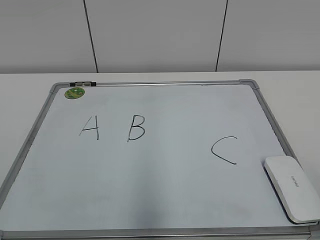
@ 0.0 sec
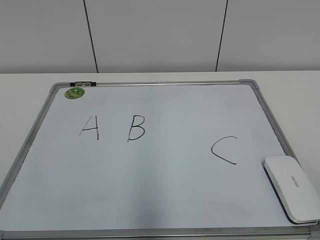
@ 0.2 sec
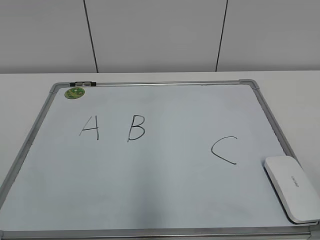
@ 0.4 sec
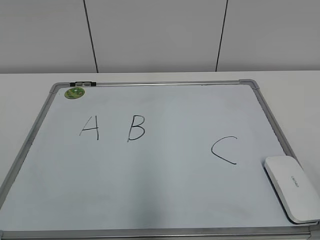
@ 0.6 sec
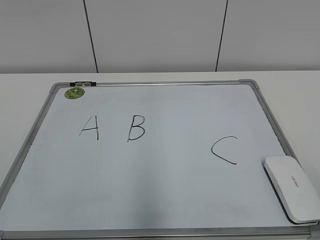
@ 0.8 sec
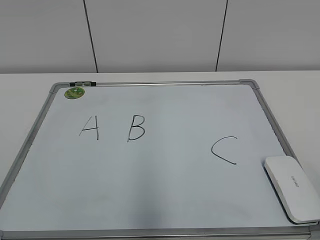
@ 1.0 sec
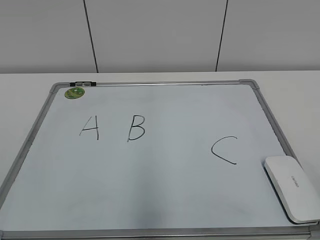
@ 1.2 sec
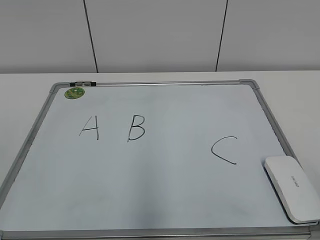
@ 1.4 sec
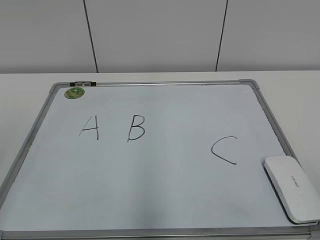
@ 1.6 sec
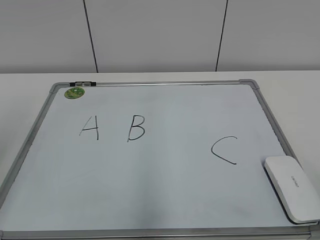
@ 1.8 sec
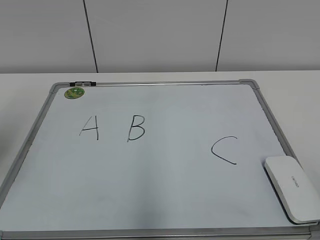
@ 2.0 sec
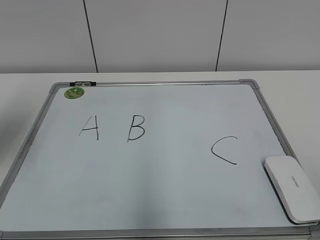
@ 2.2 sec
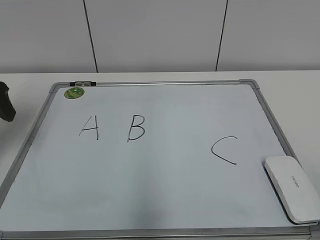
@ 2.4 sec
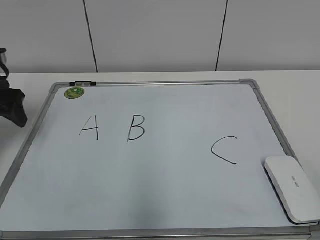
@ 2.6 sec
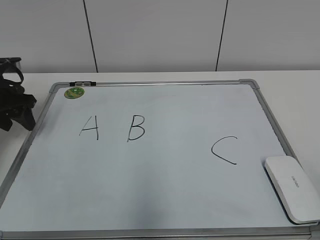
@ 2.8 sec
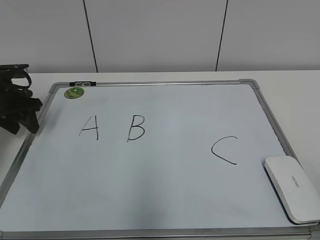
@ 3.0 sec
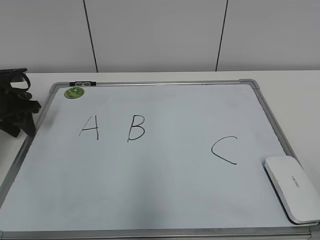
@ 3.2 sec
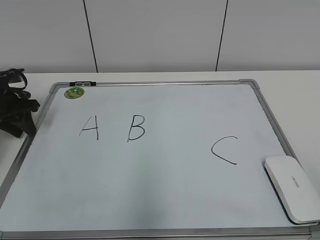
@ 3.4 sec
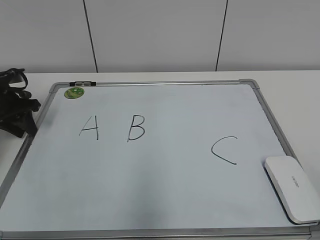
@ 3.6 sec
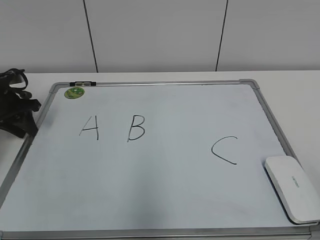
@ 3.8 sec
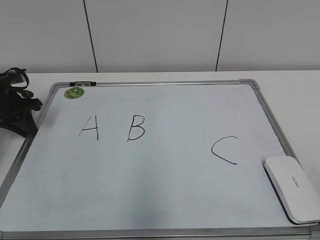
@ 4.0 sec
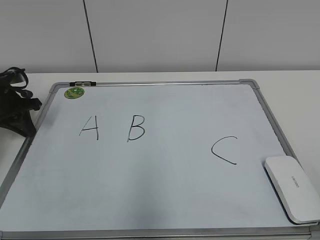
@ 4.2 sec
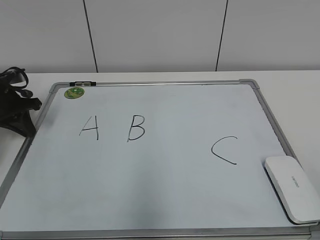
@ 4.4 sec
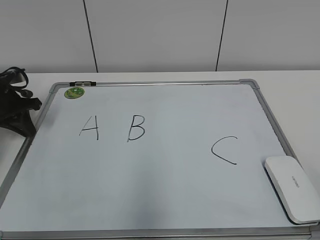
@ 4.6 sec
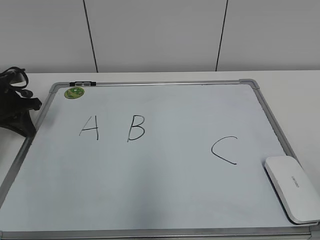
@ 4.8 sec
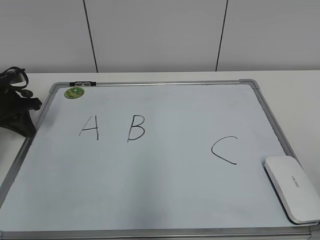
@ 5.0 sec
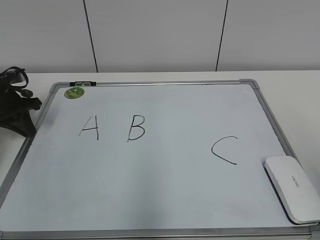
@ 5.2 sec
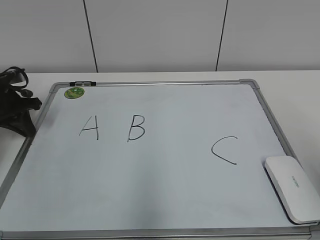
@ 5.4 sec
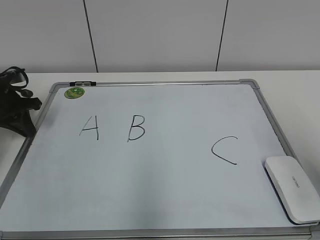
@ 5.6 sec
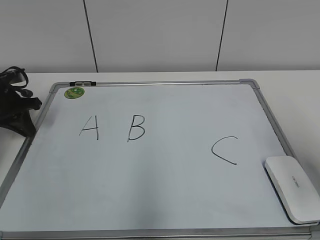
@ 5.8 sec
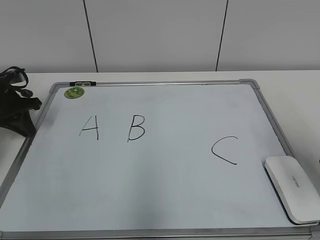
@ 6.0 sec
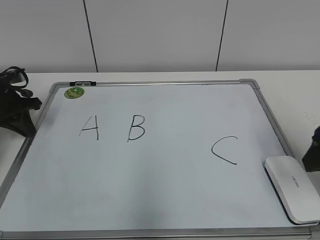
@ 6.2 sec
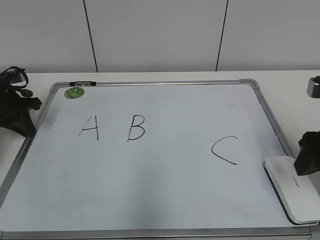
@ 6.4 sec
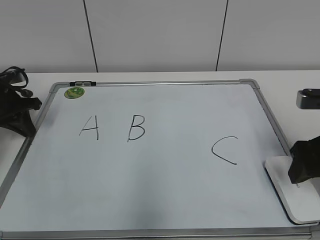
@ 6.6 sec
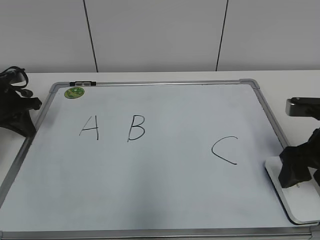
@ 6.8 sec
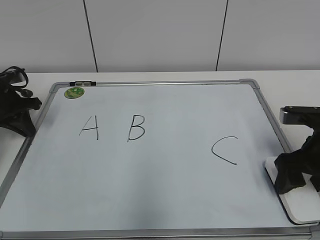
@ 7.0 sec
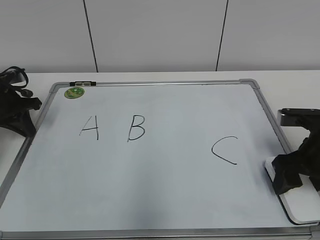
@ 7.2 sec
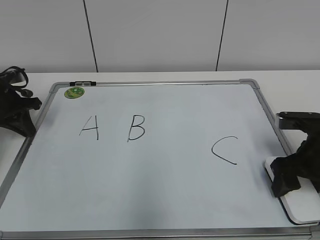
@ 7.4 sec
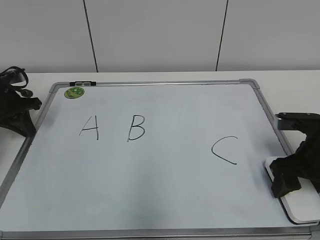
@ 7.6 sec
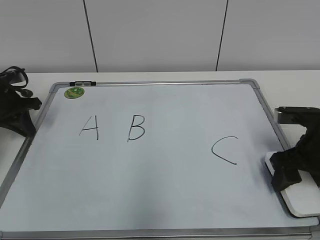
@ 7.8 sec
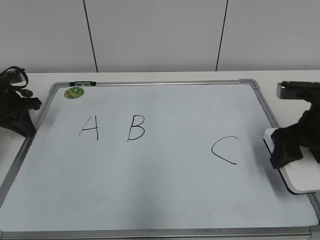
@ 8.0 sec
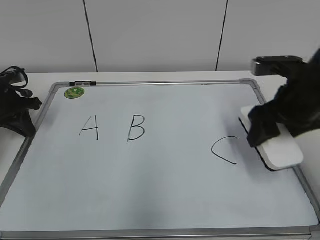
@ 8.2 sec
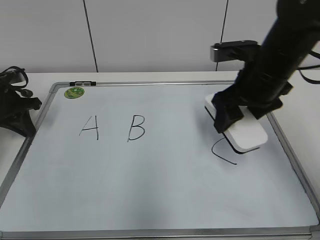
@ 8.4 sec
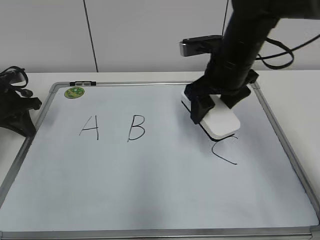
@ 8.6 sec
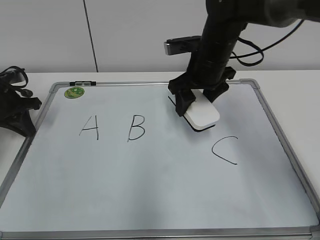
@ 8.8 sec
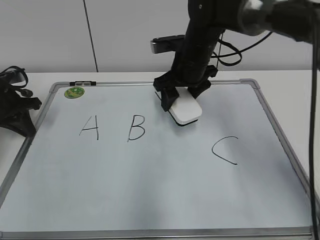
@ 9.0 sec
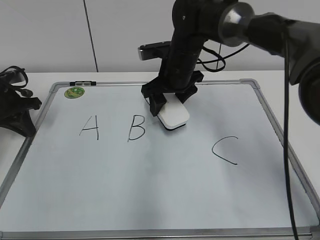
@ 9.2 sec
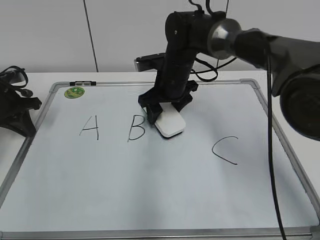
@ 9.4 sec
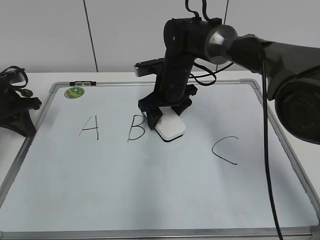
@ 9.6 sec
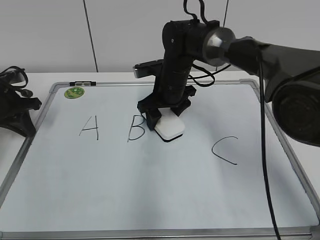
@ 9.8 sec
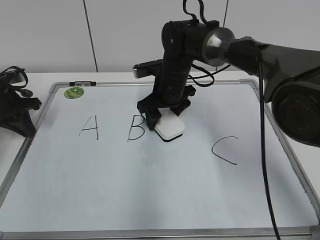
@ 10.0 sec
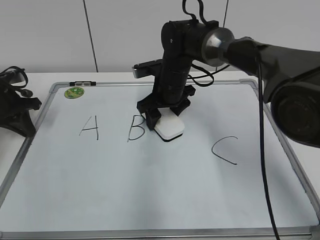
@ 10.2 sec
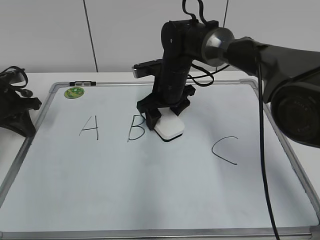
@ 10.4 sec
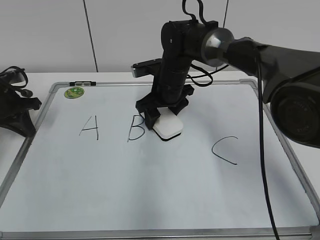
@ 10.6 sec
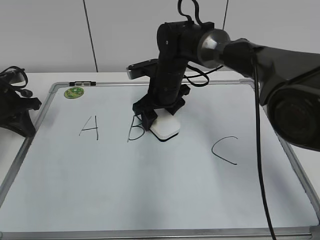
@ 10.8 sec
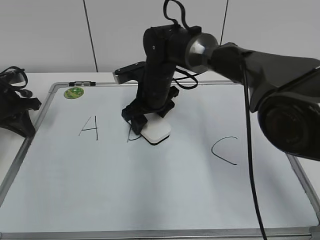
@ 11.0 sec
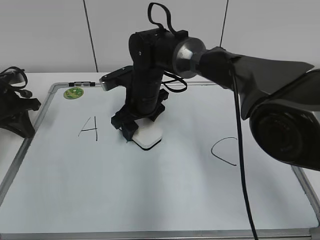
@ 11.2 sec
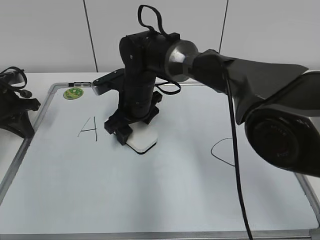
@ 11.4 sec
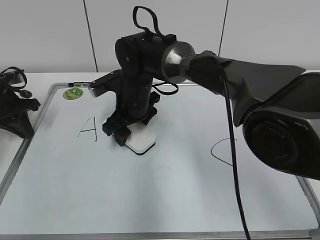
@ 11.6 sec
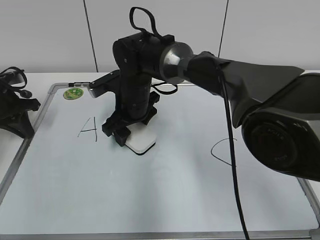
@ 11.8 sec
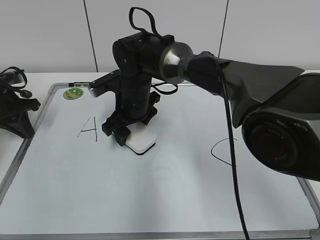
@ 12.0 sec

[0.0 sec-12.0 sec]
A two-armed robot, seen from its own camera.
Task of the whole recording: pick up the eraser on the blackboard and erase the letter "B".
Step, 0.0 sec to 4.8 sec: Hold the drawing board steady with your left hand.
Step, 5.0 sec to 7.4 sec: Grab the eraser with your right hand.
1.6 sec to 3.0 sec: The left gripper moves forward and downward, some 35 cm, and closes.
3.0 sec to 4.4 sec: The left gripper closes its fingers.
4.4 sec to 6.0 sec: The right gripper goes some 20 cm forward.
6.0 sec to 7.6 sec: The right gripper shifts some 15 cm downward and forward, and closes.
7.6 sec to 9.0 sec: The right gripper moves to the left and forward, approximately 25 cm.
9.0 sec to 10.4 sec: The right gripper is displaced downward by some 5 cm.
10.4 sec to 12.0 sec: The right gripper goes roughly 5 cm to the left.

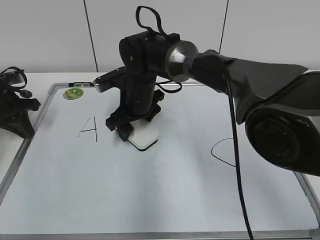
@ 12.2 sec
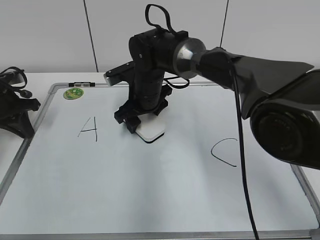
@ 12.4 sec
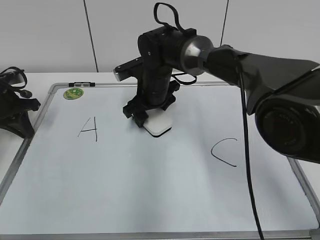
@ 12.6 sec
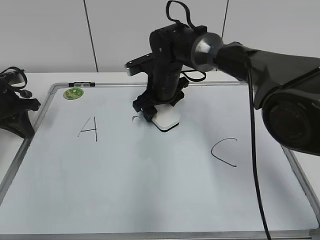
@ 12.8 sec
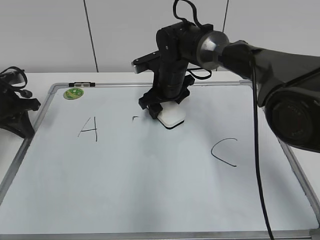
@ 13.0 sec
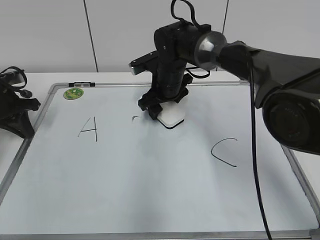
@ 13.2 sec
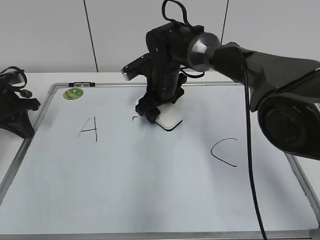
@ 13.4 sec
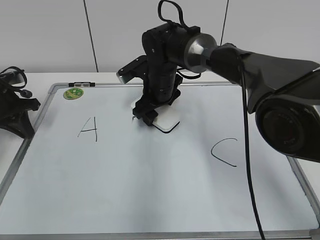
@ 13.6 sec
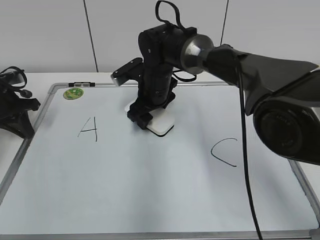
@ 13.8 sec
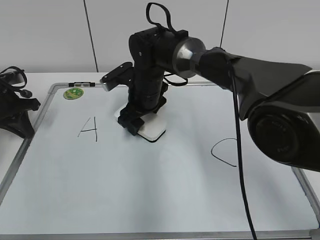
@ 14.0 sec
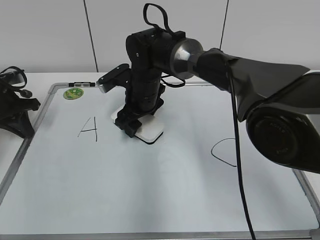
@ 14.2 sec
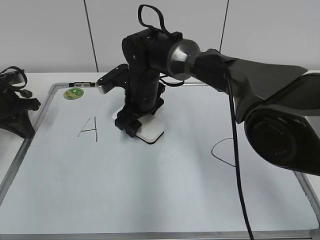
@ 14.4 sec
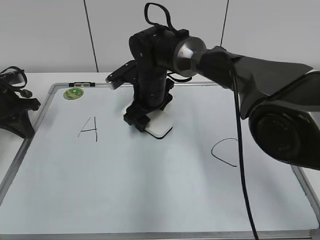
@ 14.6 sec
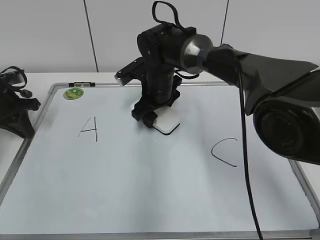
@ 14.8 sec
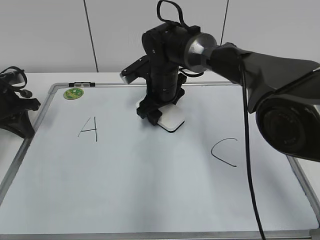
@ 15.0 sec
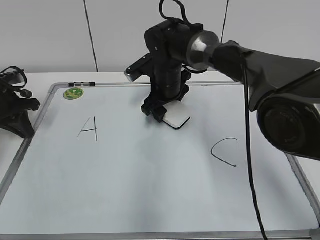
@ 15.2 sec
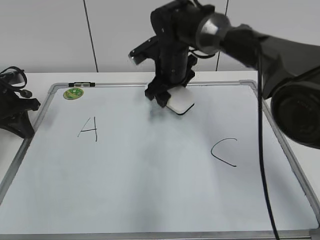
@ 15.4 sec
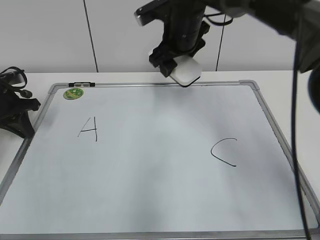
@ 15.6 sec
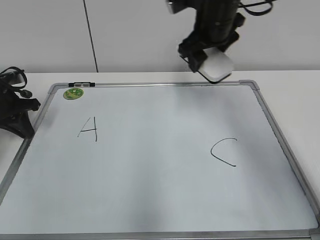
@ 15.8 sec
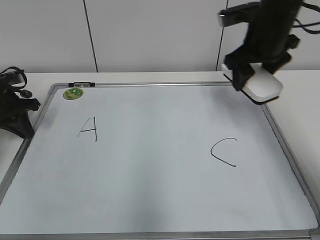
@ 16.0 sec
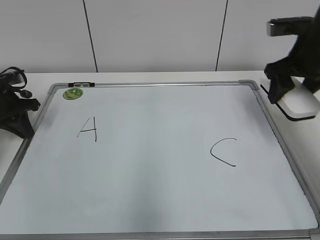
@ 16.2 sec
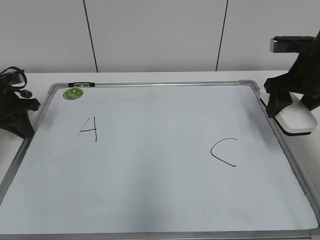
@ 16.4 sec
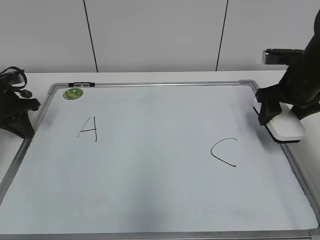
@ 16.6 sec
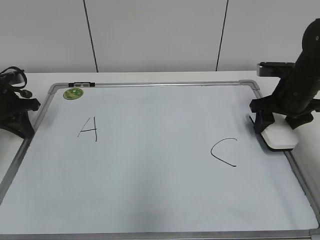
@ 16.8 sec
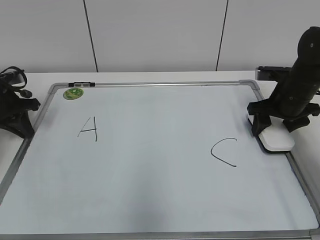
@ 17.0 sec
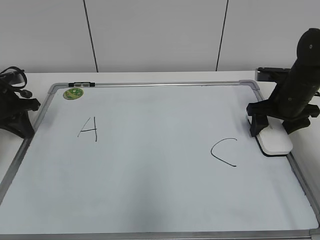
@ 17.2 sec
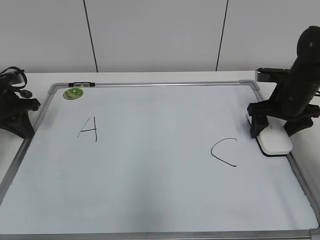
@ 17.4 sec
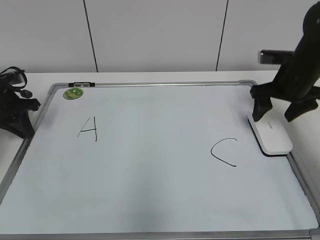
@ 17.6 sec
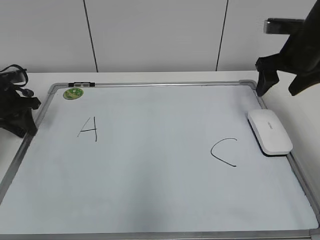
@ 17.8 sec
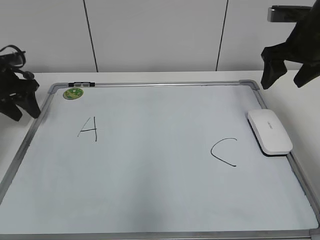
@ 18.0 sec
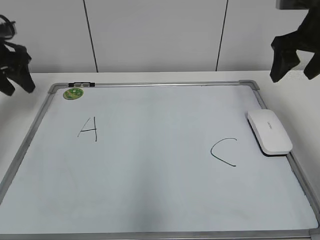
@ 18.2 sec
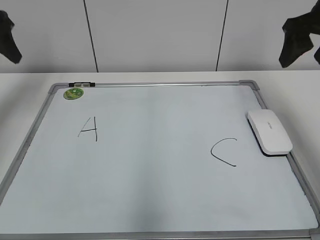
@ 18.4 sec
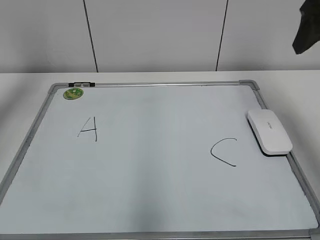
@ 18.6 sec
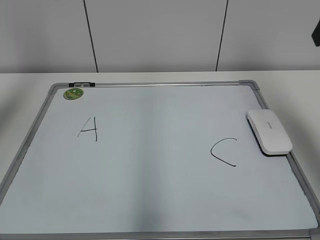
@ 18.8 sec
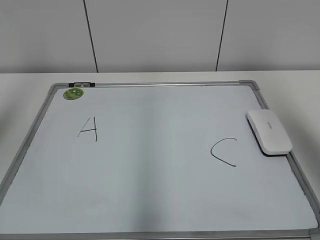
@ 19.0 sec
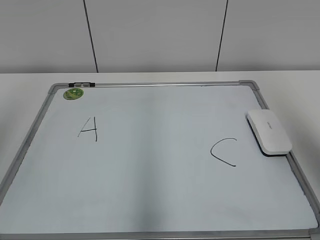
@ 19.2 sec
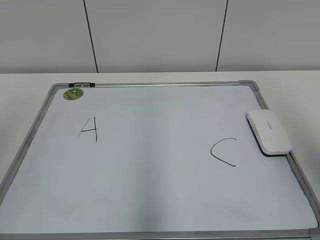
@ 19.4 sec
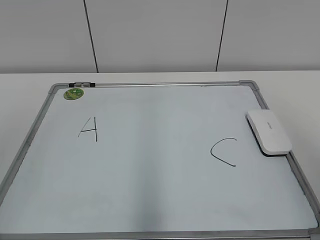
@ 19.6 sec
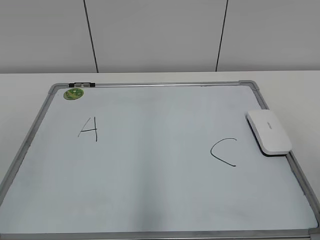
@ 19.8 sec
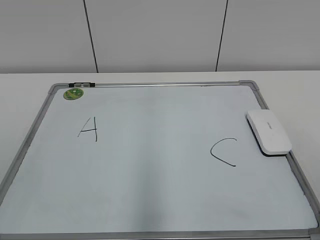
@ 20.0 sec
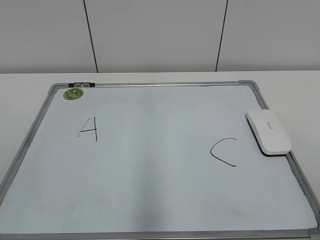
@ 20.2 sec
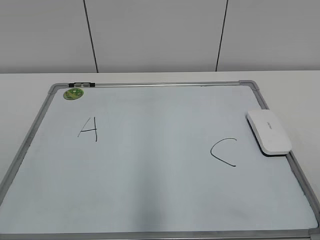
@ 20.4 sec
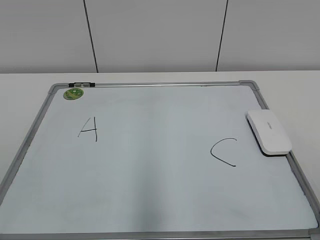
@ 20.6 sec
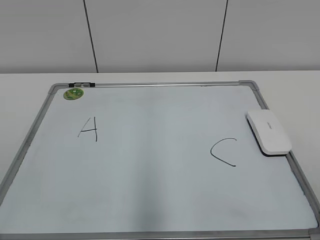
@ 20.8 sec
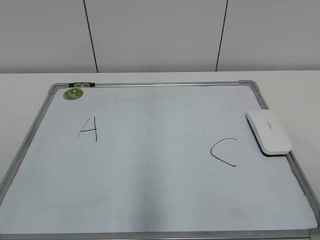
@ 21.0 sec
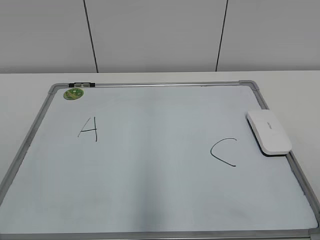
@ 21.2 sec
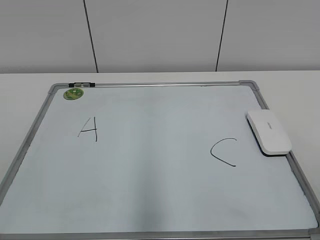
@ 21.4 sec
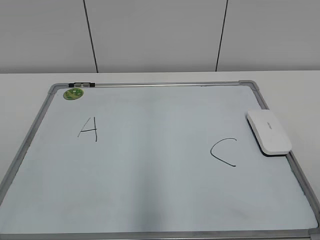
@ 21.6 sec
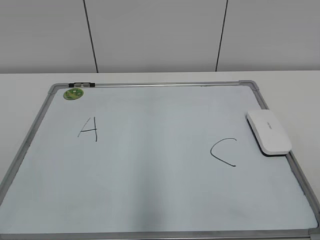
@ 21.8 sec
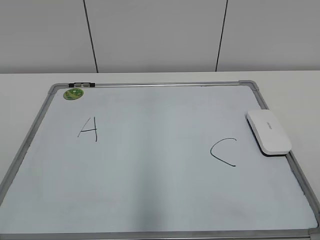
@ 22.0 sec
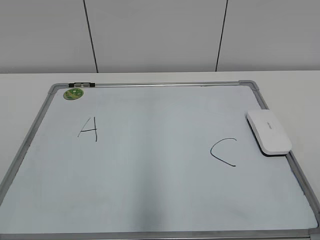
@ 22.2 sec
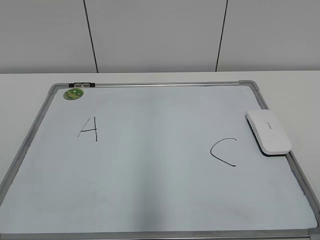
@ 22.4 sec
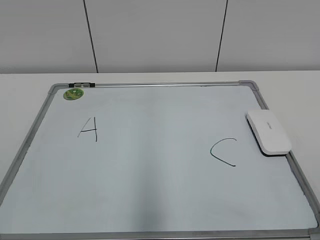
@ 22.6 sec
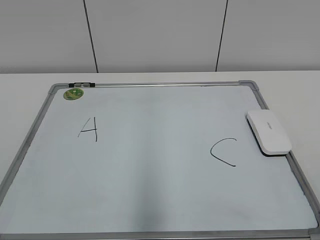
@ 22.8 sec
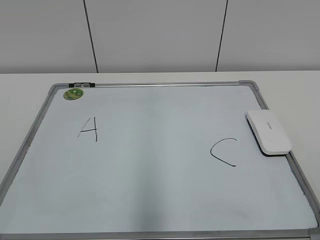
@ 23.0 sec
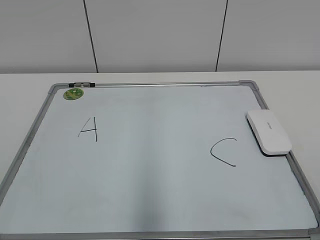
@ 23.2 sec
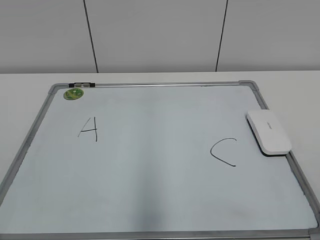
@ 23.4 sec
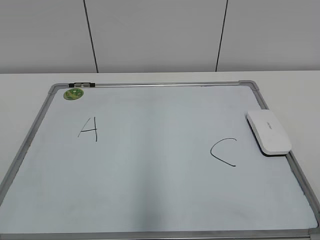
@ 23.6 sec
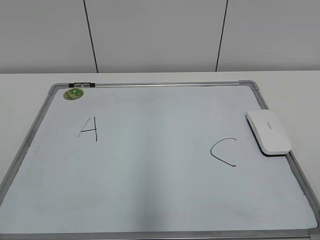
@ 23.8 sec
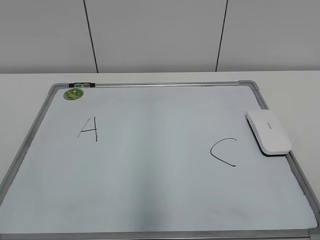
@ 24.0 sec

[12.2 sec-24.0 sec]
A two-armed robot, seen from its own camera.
Task of the whole recording: pick up the eraser on the blackboard and erase the letter "B".
Step, 12.2 sec to 14.4 sec: Erase the letter B with your right hand.
Step, 14.6 sec to 17.4 sec: Put down the eraser with your right hand.
13.6 sec to 15.2 sec: The grippers make only small movements.
15.2 sec to 16.6 sec: The right gripper is displaced to the right by some 25 cm.
16.6 sec to 18.2 sec: The two grippers go approximately 10 cm upward. The left gripper opens up. The right gripper opens its fingers.
18.2 sec to 19.6 sec: The left gripper travels backward and upward by roughly 40 cm; the right gripper heads backward, covering approximately 30 cm.
22.6 sec to 24.0 sec: The two grippers keep their place.
